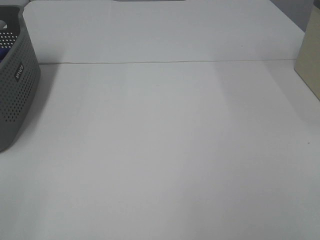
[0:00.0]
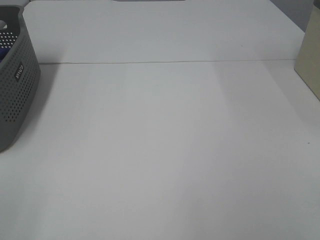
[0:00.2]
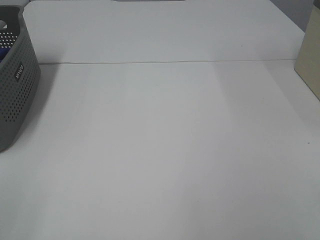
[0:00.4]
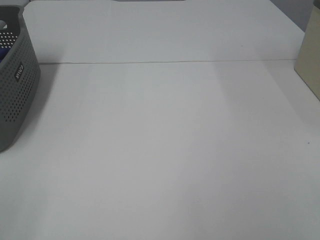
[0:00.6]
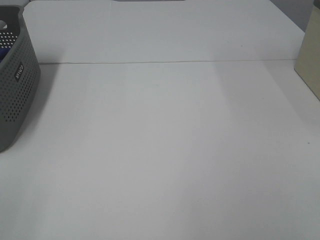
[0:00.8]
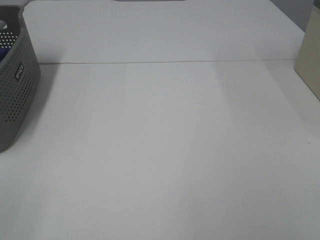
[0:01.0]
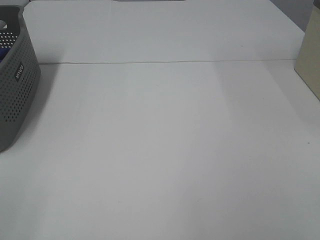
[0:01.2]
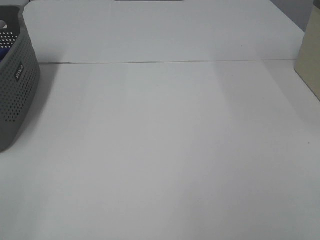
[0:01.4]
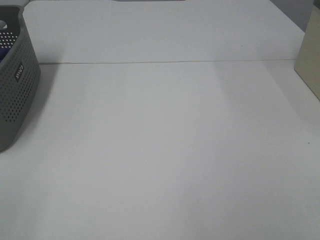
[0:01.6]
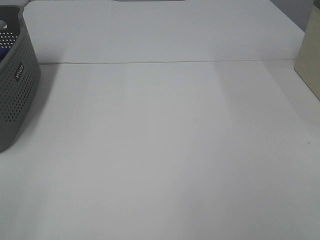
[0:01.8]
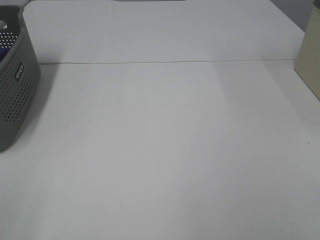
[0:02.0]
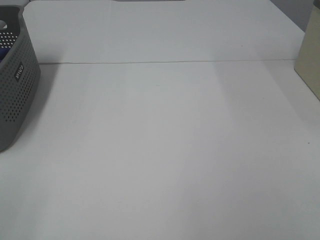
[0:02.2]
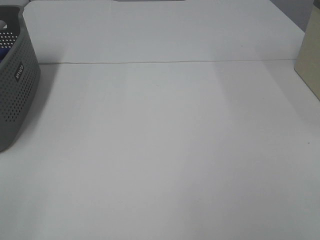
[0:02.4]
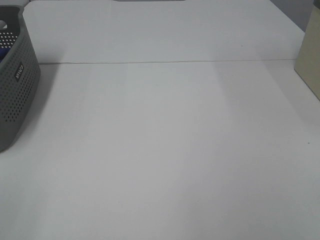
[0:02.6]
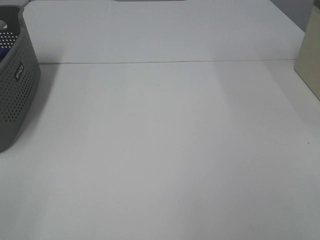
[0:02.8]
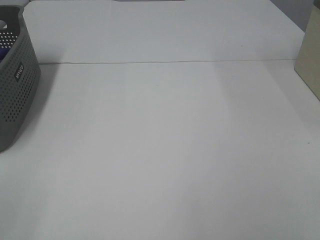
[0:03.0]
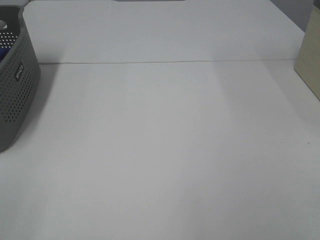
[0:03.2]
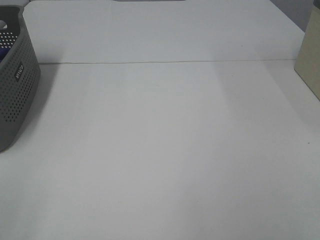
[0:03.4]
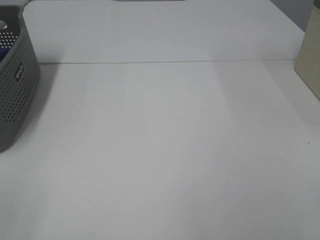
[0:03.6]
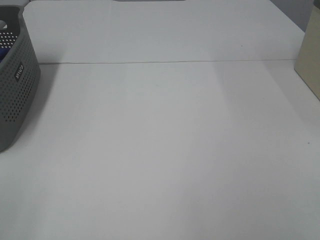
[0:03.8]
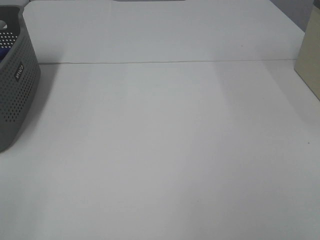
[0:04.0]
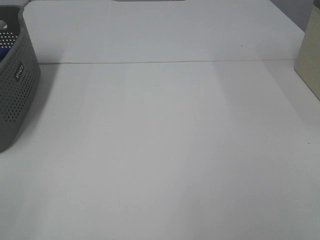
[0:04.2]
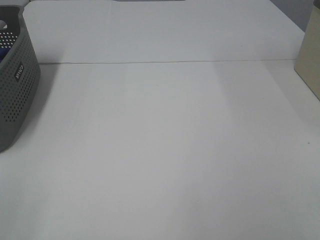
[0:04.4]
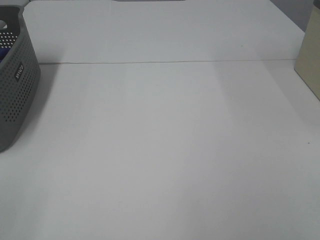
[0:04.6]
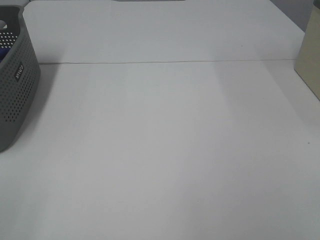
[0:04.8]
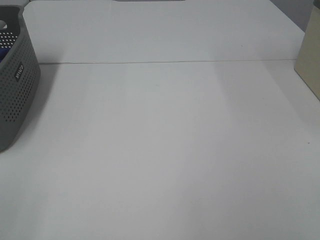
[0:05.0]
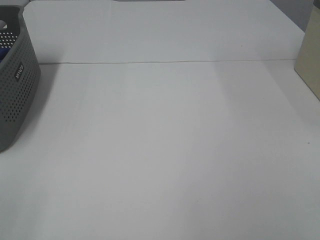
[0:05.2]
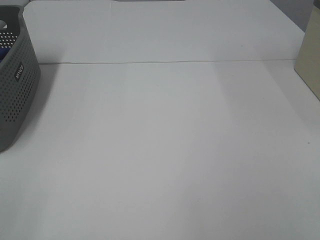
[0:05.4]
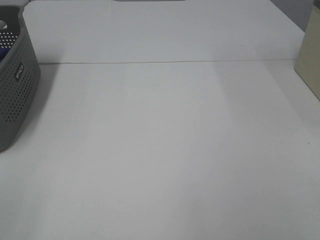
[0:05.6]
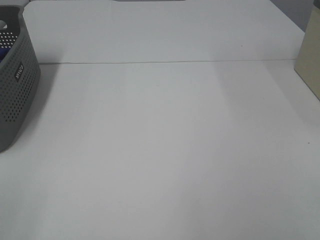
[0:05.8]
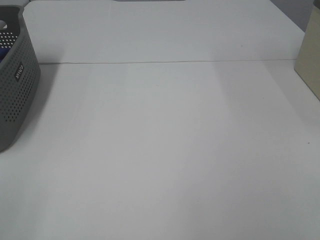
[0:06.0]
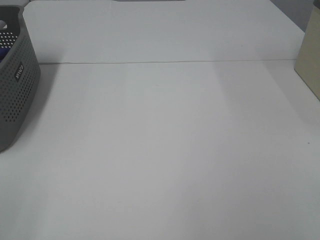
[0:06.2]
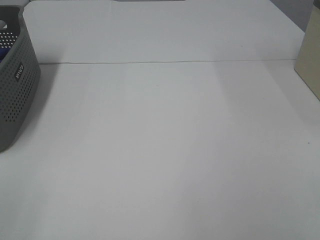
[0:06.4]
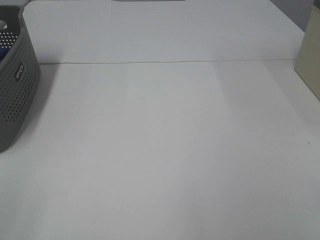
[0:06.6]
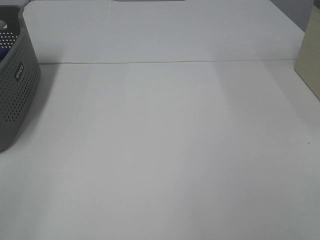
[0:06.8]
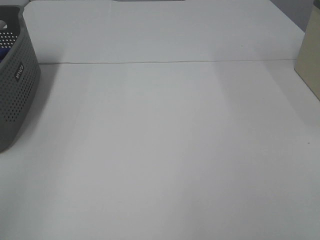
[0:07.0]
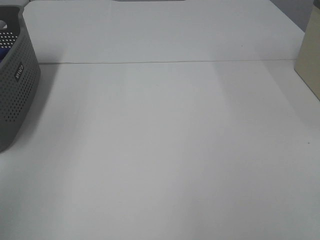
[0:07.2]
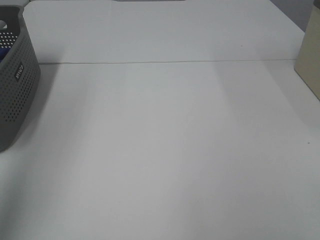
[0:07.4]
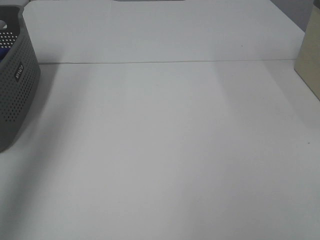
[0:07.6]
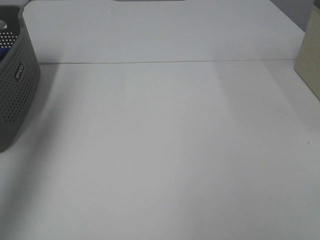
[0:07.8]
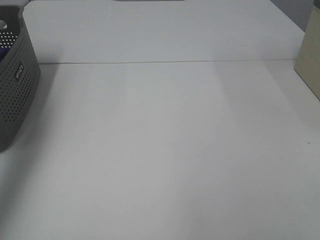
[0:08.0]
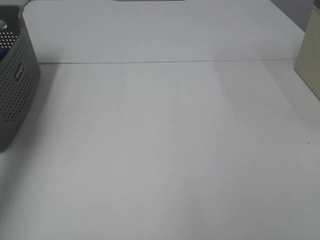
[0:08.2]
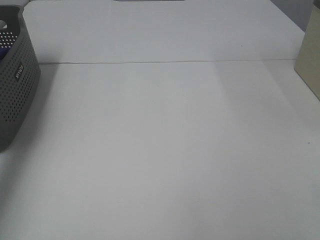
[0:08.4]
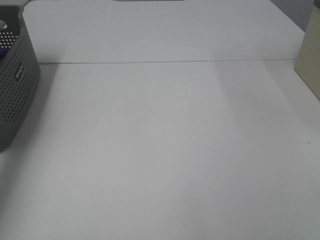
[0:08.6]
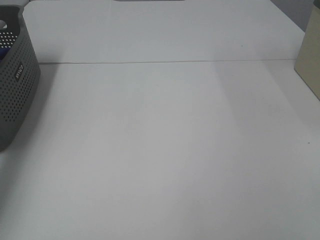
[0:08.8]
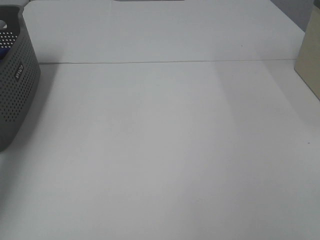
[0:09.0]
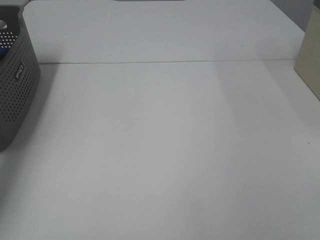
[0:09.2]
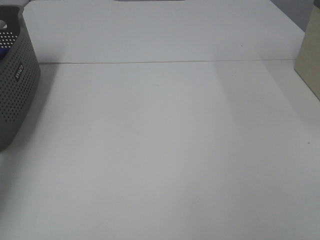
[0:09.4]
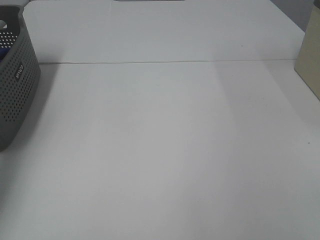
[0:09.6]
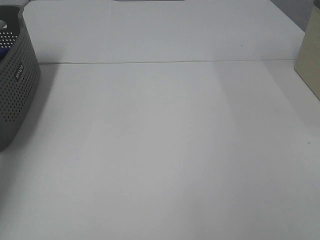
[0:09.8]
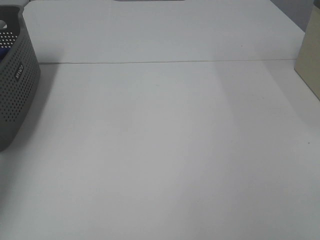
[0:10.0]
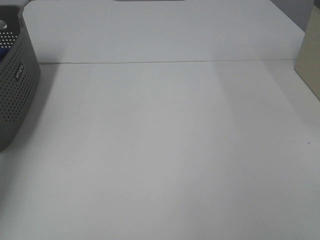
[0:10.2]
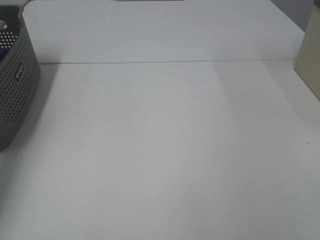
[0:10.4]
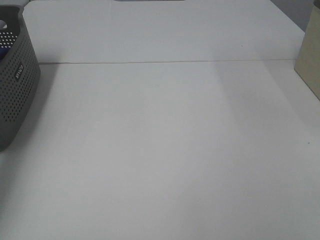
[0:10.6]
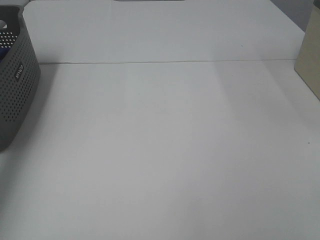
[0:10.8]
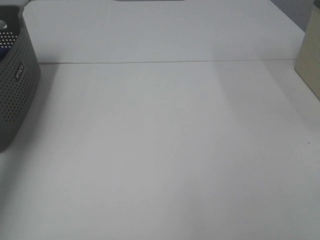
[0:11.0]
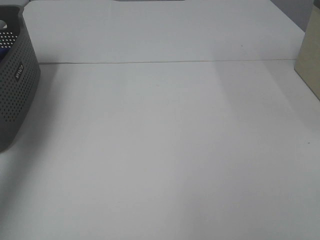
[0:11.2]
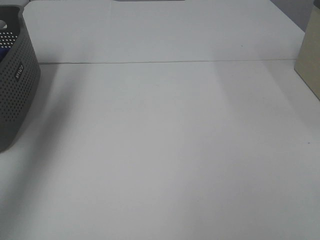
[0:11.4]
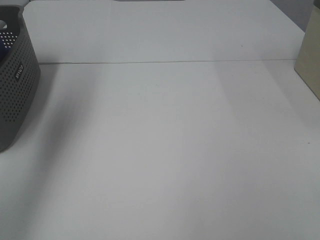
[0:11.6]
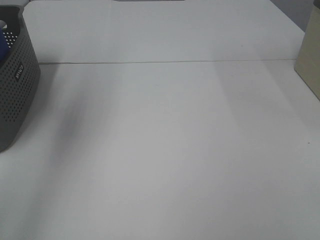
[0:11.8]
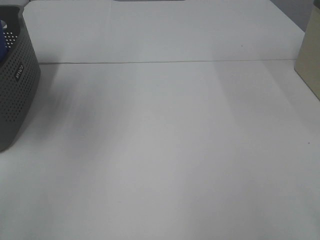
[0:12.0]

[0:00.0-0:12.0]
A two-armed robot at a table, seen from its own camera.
Task of the whole recording: Remove the towel and place it.
0:00.0 to 0:06.0: Both grippers stay put.
0:06.0 to 0:07.6: The left gripper shifts some 30 cm forward and upward.
0:07.6 to 0:09.0: The left gripper heads downward and forward, covering approximately 35 cm.
0:10.4 to 0:12.0: The left gripper shifts roughly 35 cm upward, to the right and backward.

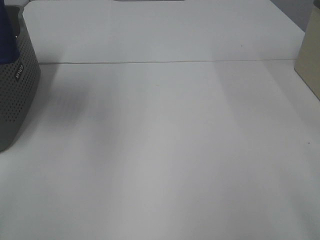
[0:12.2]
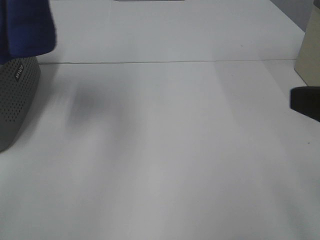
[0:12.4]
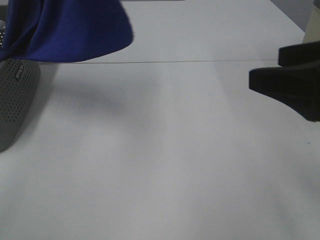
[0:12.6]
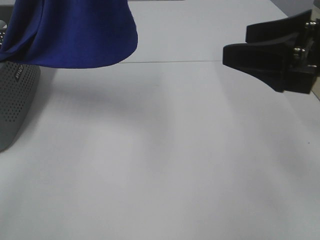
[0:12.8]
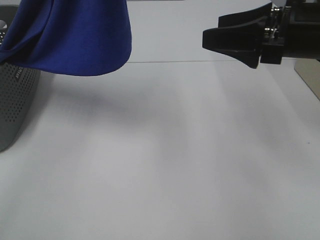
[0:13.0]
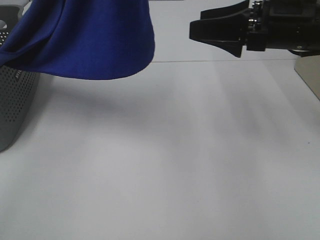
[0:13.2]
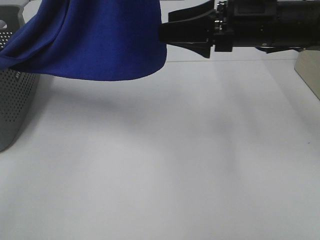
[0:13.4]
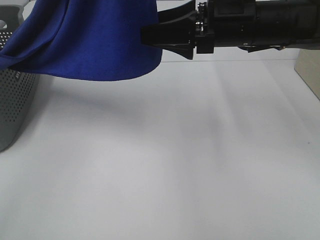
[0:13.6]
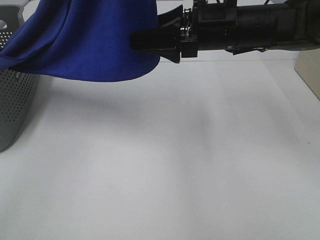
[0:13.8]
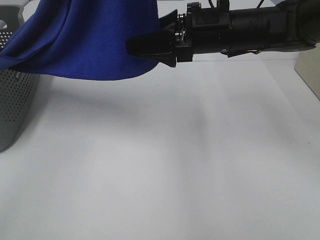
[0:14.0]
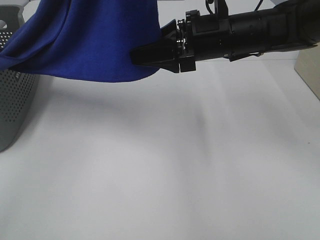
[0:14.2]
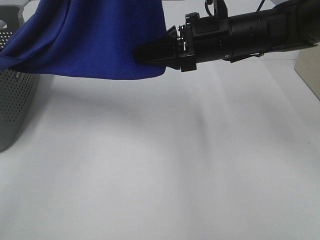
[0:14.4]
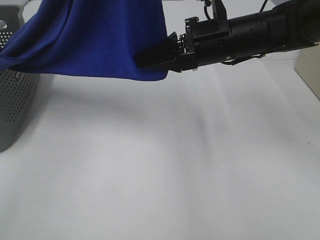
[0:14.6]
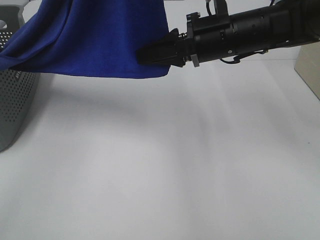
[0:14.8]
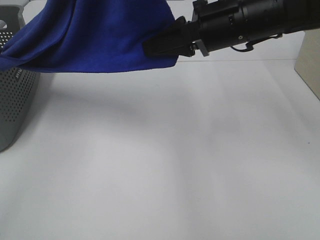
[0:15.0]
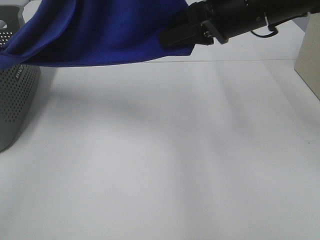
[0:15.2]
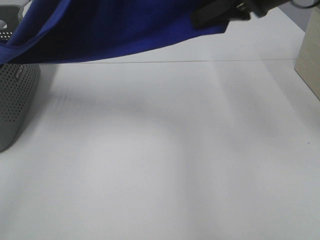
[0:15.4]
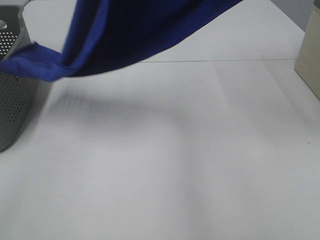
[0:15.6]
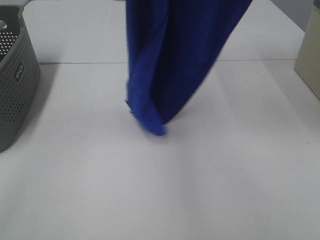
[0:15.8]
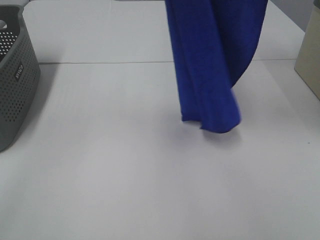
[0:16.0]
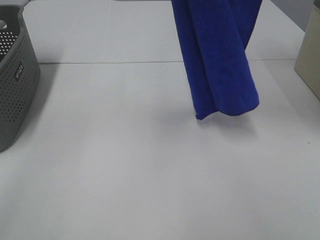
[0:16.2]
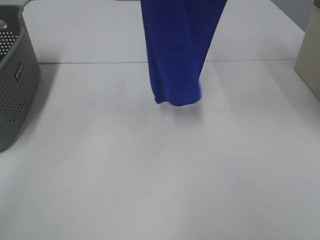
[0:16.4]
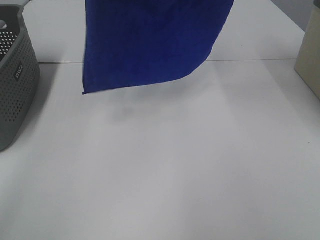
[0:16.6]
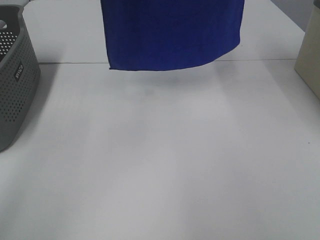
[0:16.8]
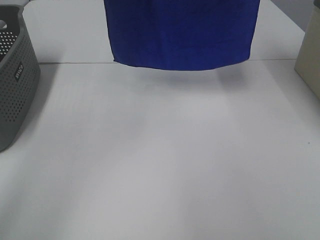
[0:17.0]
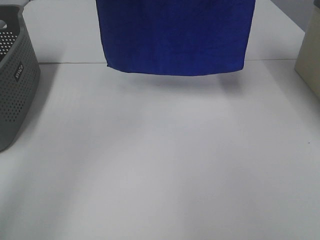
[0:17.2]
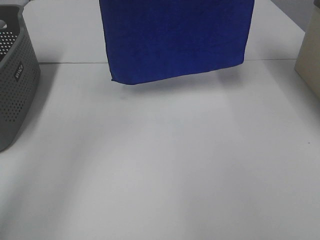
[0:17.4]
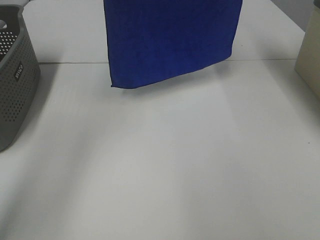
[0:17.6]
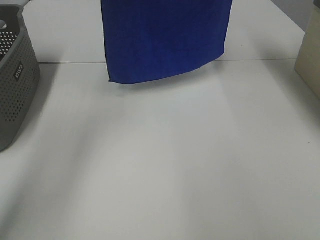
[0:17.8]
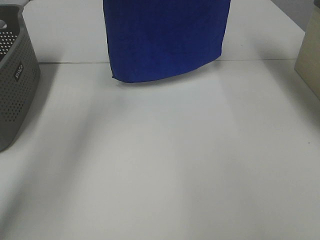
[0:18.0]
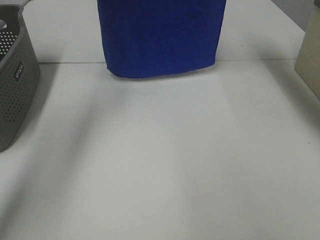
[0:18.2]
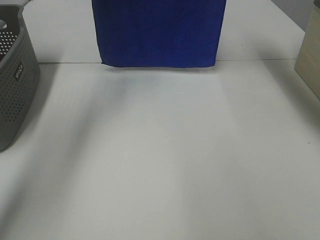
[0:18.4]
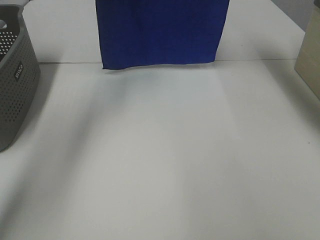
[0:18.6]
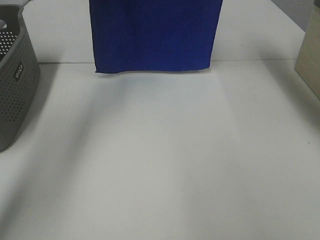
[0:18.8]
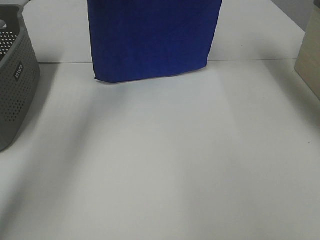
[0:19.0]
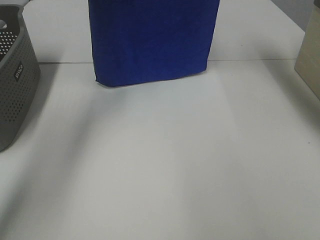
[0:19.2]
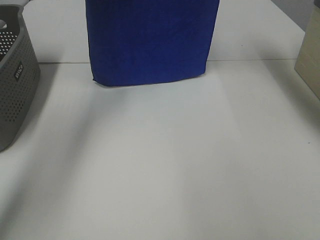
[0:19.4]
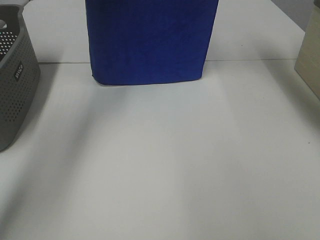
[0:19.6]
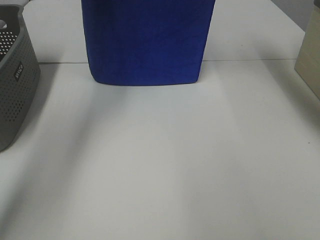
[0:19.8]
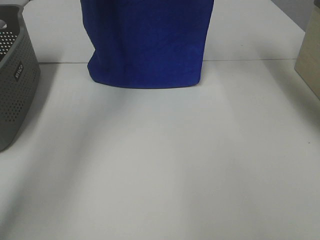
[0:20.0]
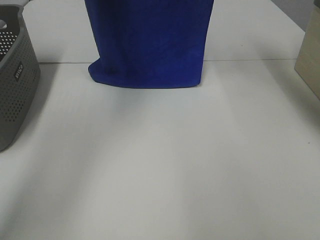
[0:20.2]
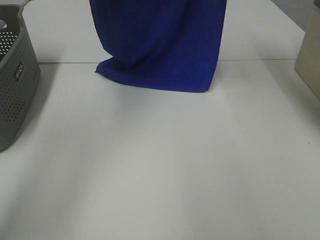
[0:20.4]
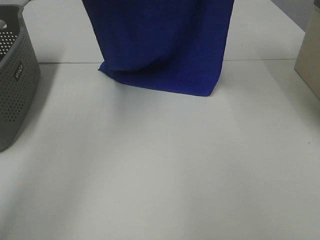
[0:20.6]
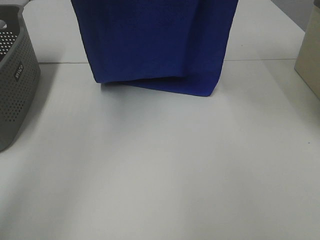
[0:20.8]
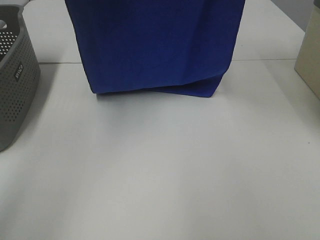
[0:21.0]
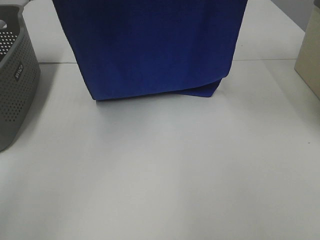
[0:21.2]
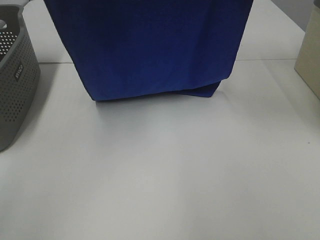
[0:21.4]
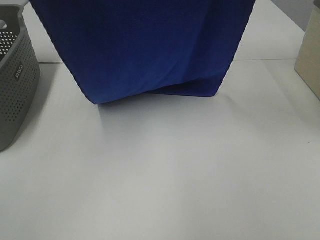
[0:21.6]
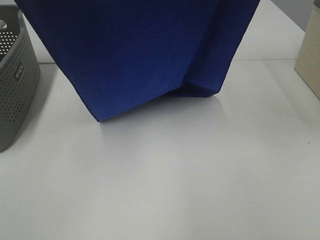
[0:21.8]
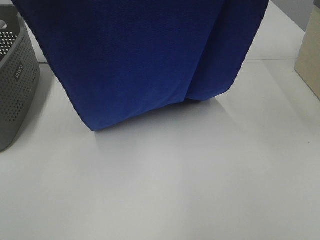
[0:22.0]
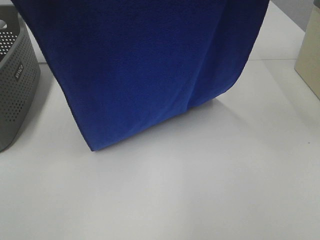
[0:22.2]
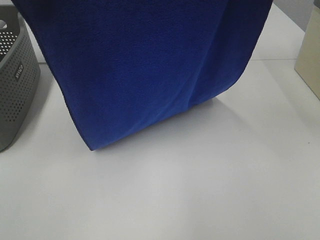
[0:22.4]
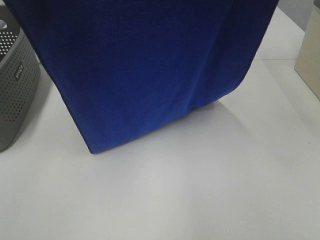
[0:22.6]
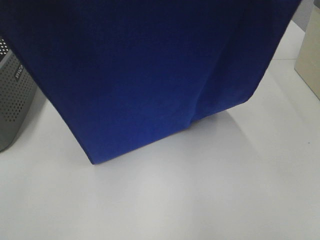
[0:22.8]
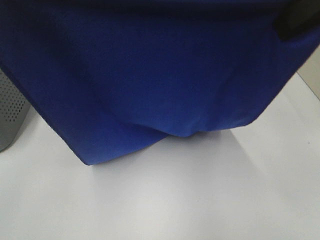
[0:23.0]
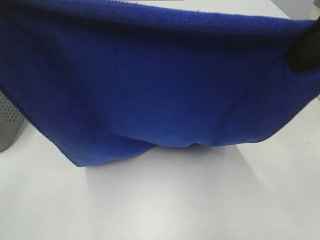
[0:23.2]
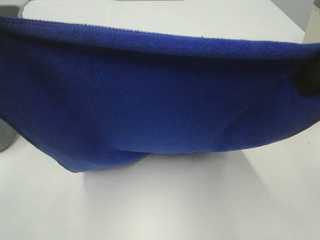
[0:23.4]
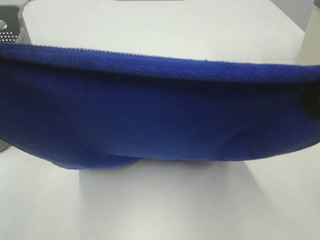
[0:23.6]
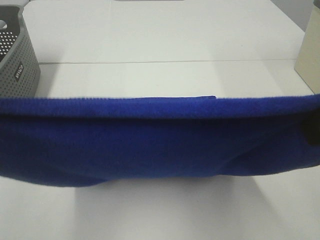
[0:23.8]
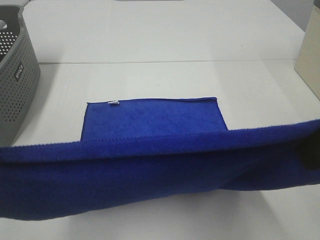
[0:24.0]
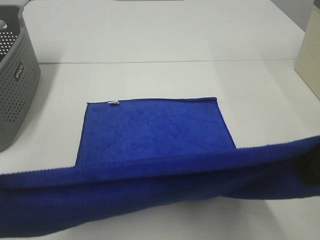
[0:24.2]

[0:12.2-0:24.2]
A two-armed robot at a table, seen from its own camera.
Task of the whole recording: Remove the towel and place it.
Step, 0:12.2 to 0:13.8: Right hand: grab a corner of the blue towel and straighten it.
Step, 0:14.0 to 0:22.4: Left hand: spread the blue towel flat on the table.
Step, 0:14.0 to 0:22.4: Right hand: spread the blue towel flat on the table.
0:12.2 to 0:13.8: The right gripper moves forward and to the left, some 30 cm. The left gripper moves to the right, approximately 15 cm.
0:13.8 to 0:15.2: The right gripper heads upward, covering about 5 cm, and closes its fingers.
0:15.2 to 0:16.6: The left gripper is displaced forward and to the left by roughly 10 cm; the right gripper goes about 25 cm upward.
0:16.6 to 0:18.2: The grippers both shift forward and downward by approximately 15 cm.
0:18.2 to 0:19.8: The grippers make only small movements.
0:19.8 to 0:21.2: The left gripper heads backward, covering roughly 15 cm. Meanwhile the right gripper goes some 10 cm backward.
0:21.2 to 0:22.6: Both grippers travel together backward, about 10 cm.
0:22.6 to 0:24.2: Both grippers move downward and backward, some 20 cm.
